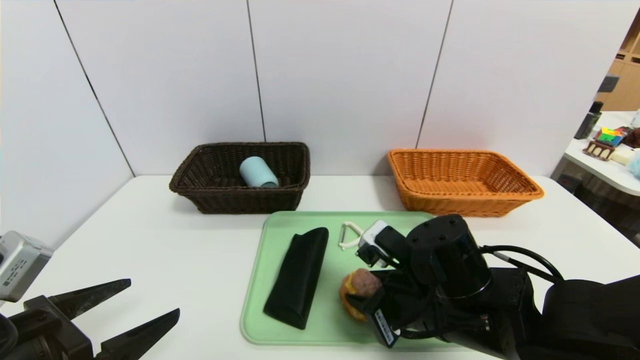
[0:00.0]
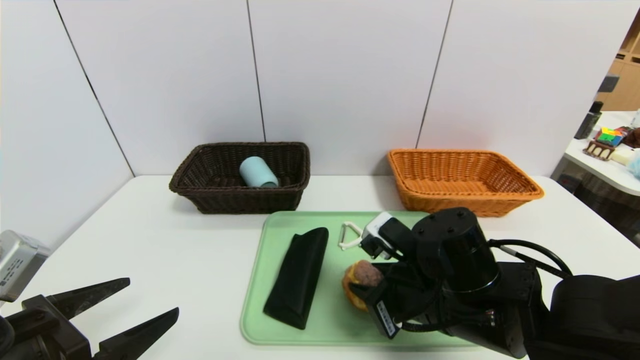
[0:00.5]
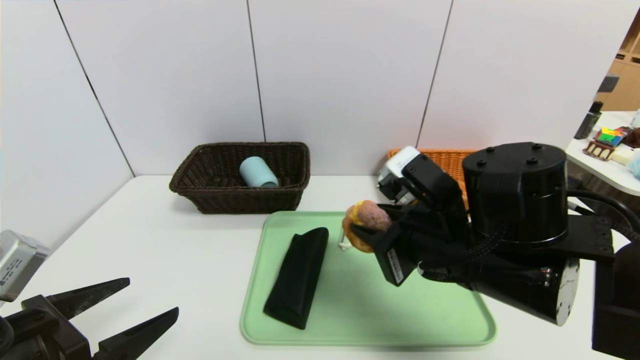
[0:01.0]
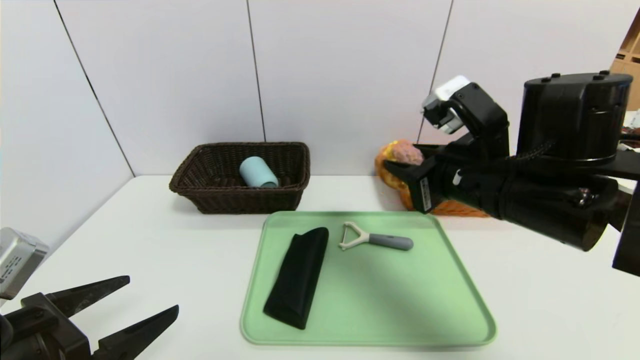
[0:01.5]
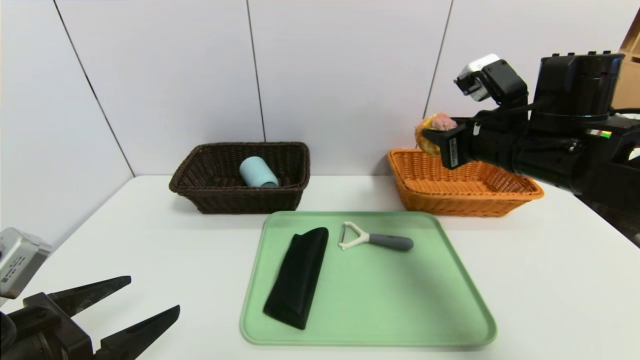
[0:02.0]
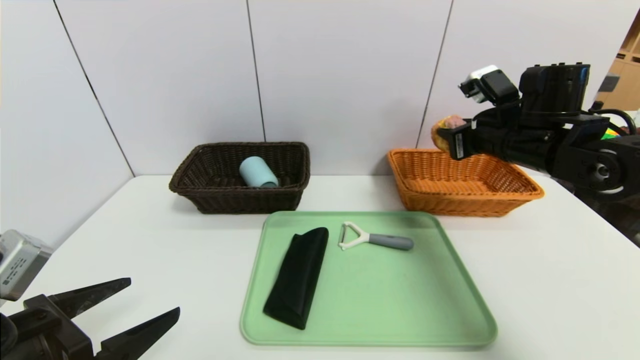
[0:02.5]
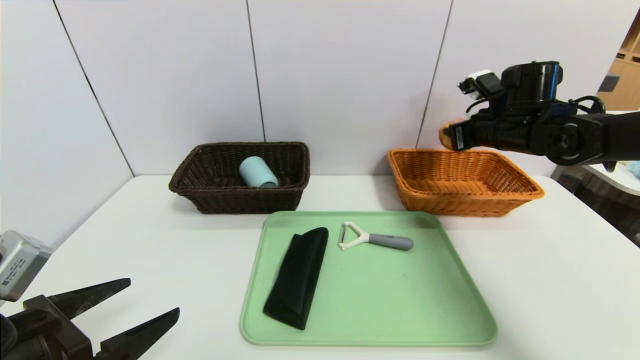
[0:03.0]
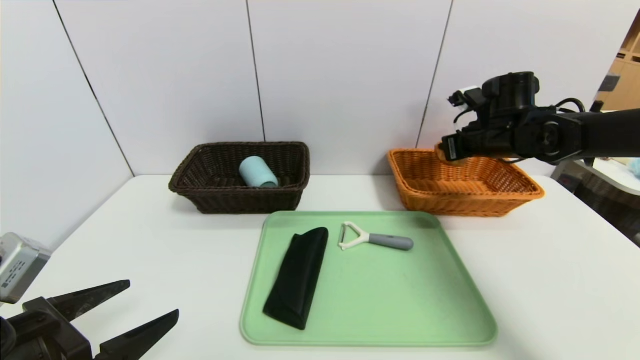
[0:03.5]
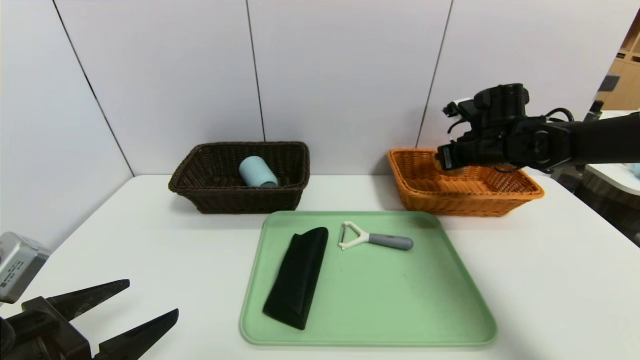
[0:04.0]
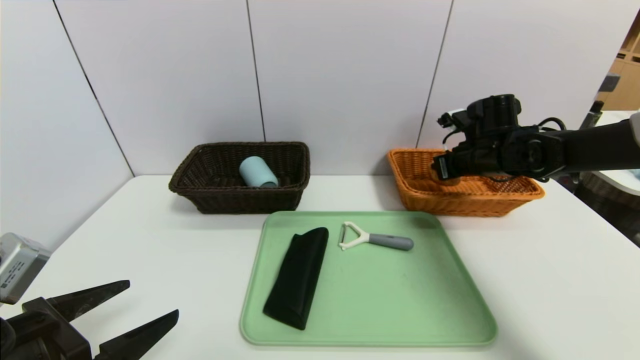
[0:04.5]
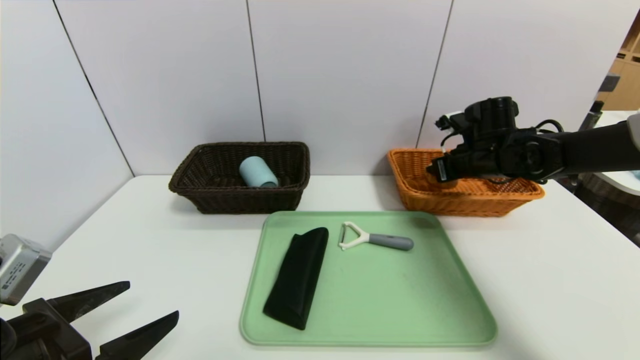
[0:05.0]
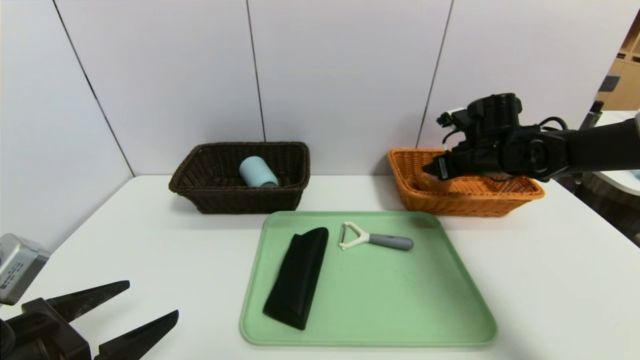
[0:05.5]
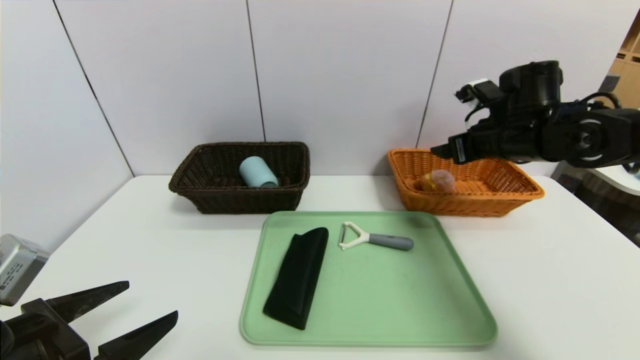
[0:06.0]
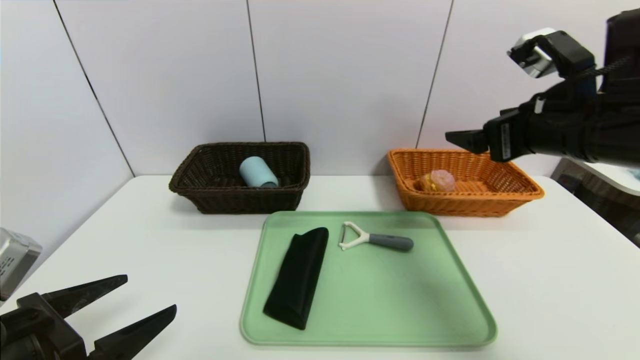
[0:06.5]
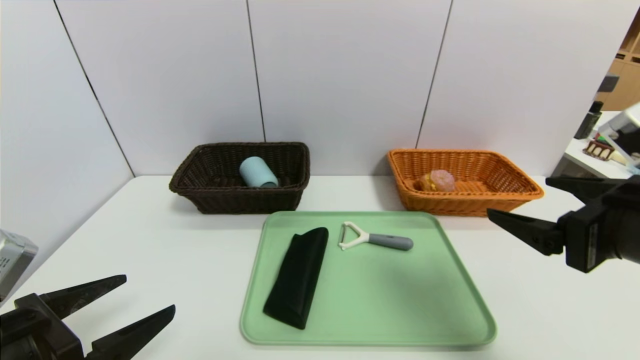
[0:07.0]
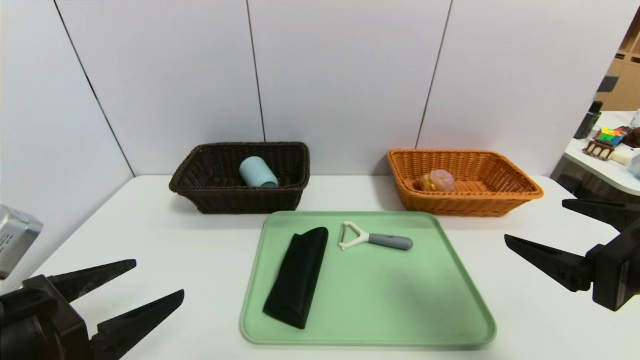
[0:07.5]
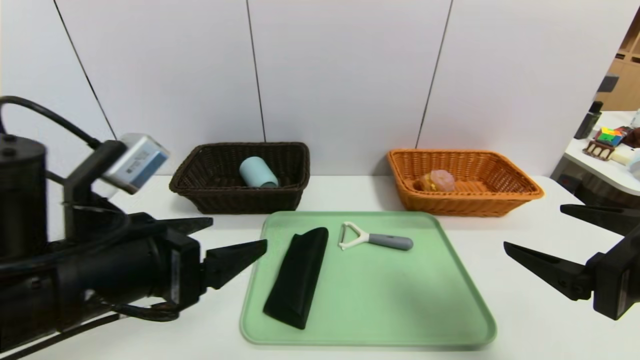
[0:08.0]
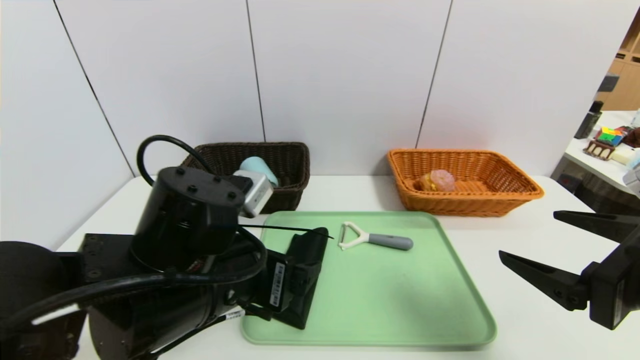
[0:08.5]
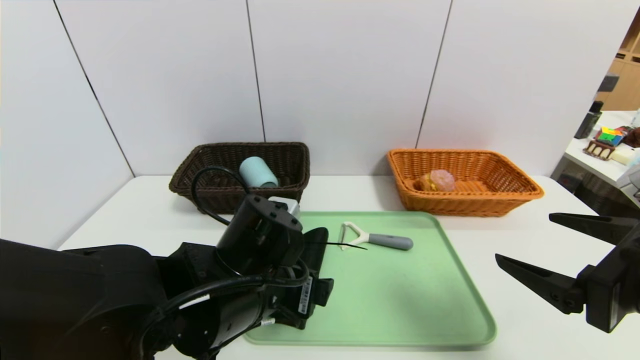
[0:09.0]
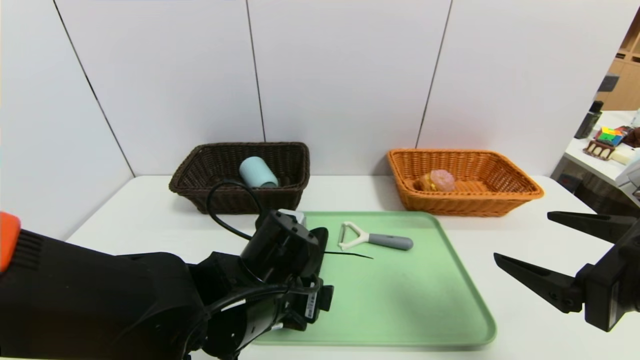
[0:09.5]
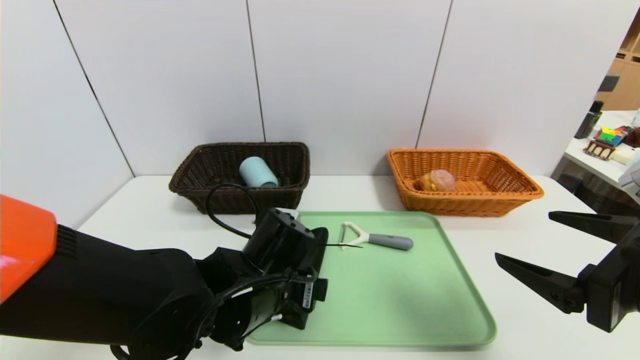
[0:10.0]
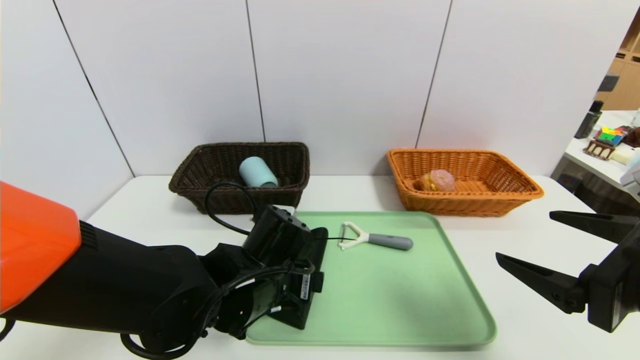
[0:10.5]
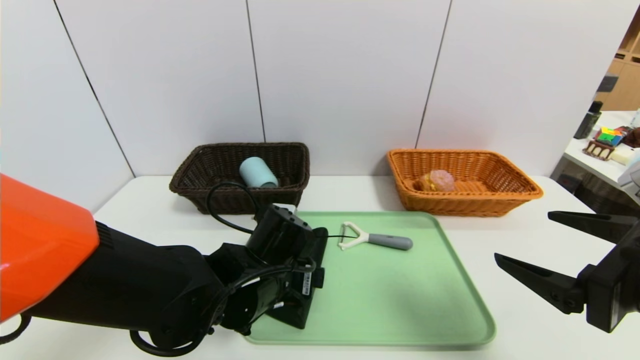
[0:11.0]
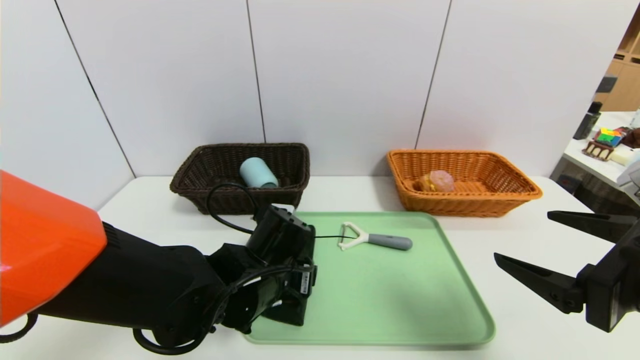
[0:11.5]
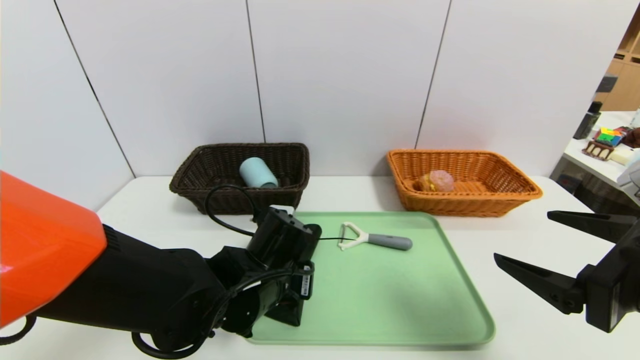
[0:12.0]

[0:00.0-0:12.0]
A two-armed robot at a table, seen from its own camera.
Task of the whole recording: place the food in the right basket with the right gripper, and place the non food items in the left basket with the left gripper.
Step, 0:00.0 to 0:06.5: Grasp the round bread and put it in the right basket.
0:00.0 to 0:02.0: The right gripper travels upward, to the right and forward by about 20 cm.
0:02.0 to 0:04.0: The right gripper goes approximately 15 cm forward, to the right and downward.
0:04.0 to 0:06.0: The right gripper changes place by about 5 cm, and opens its fingers.
0:06.0 to 0:08.0: The right gripper is displaced backward by some 25 cm. Meanwhile the left gripper is displaced to the right, upward and forward by approximately 10 cm.
0:08.0 to 0:10.0: The left gripper goes about 20 cm downward, to the right and forward.
0:10.0 to 0:12.0: The left gripper closes up.

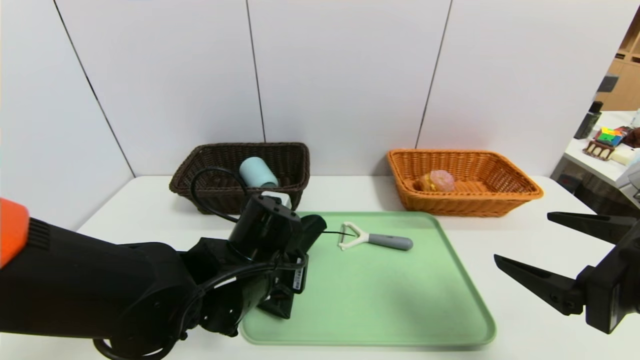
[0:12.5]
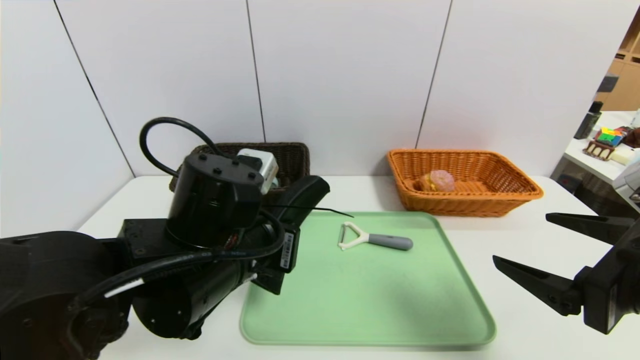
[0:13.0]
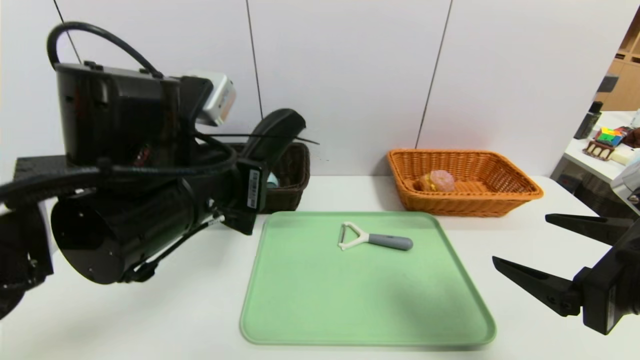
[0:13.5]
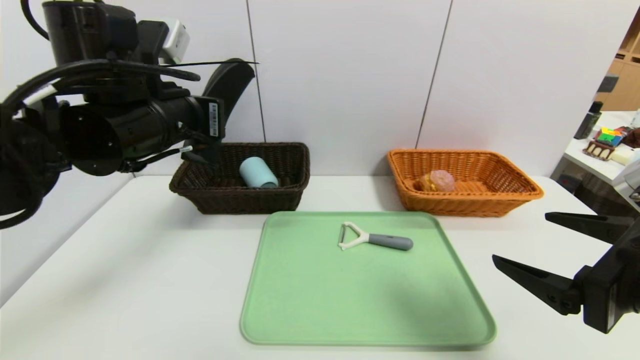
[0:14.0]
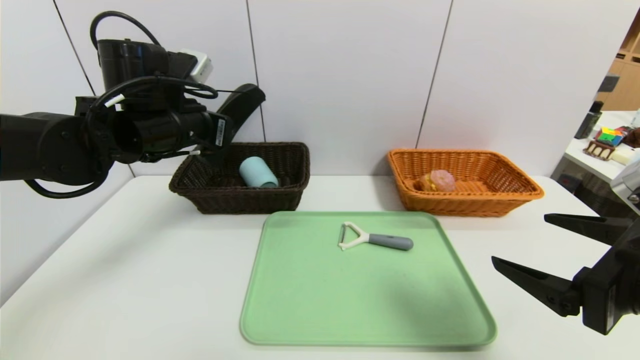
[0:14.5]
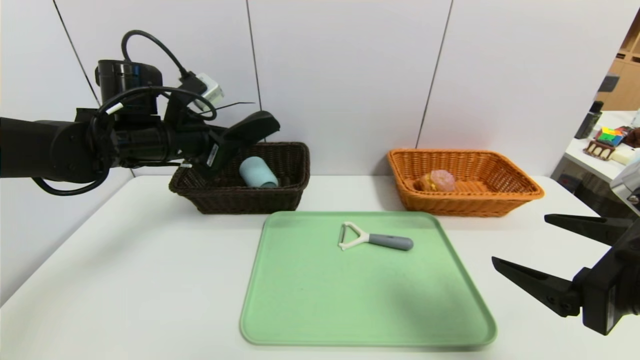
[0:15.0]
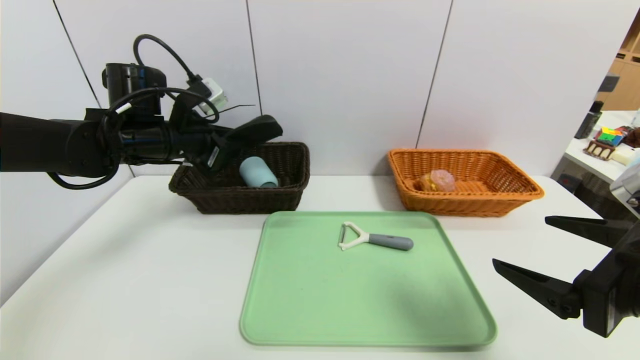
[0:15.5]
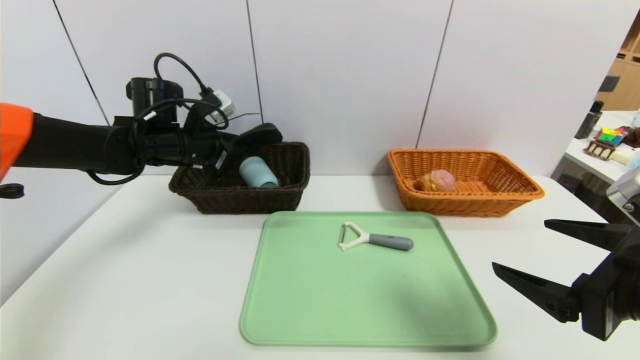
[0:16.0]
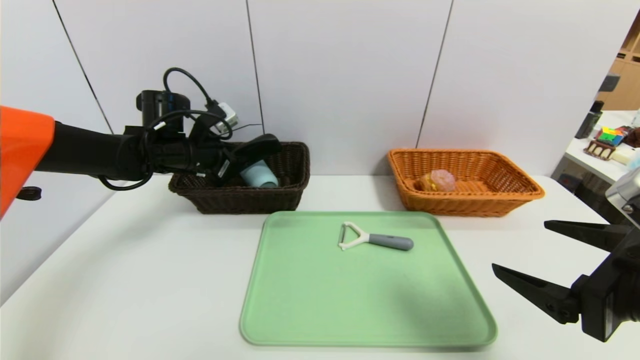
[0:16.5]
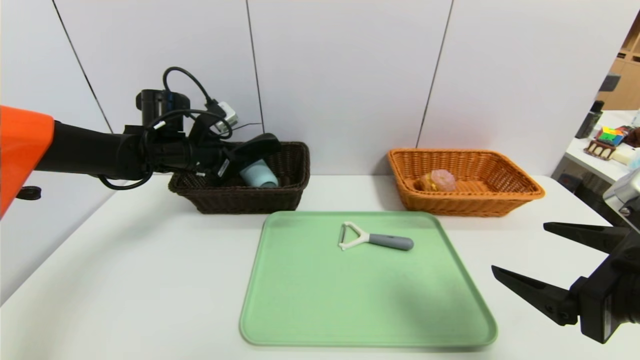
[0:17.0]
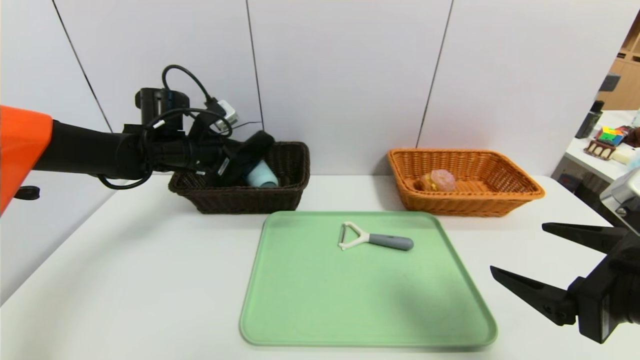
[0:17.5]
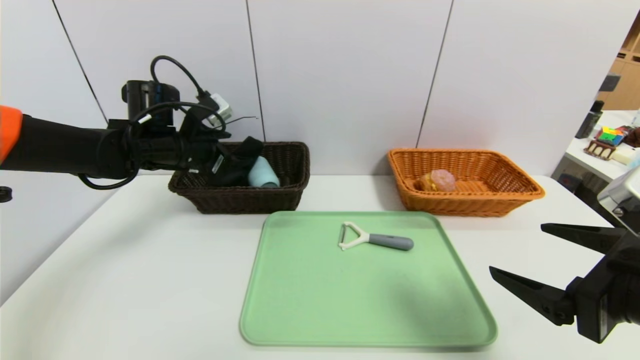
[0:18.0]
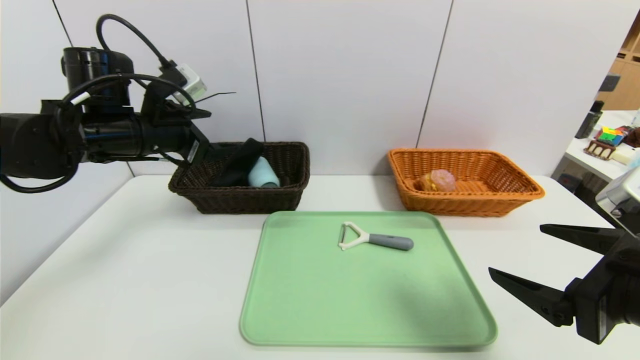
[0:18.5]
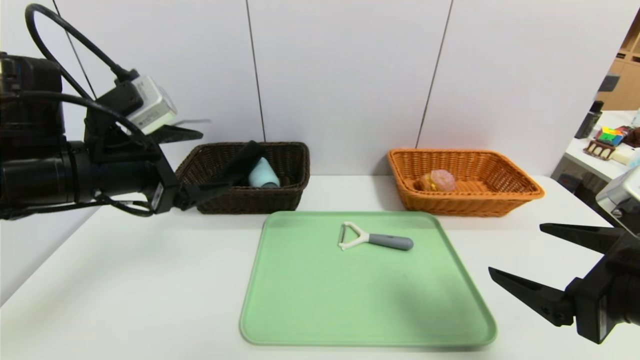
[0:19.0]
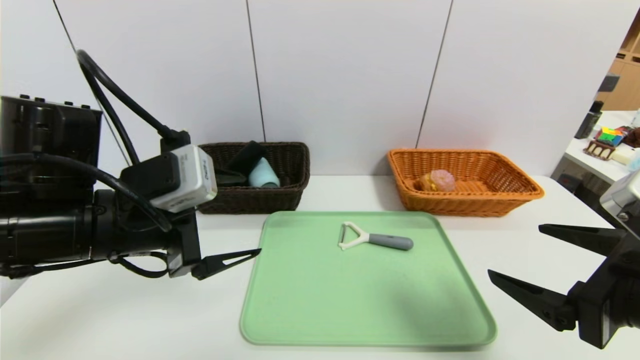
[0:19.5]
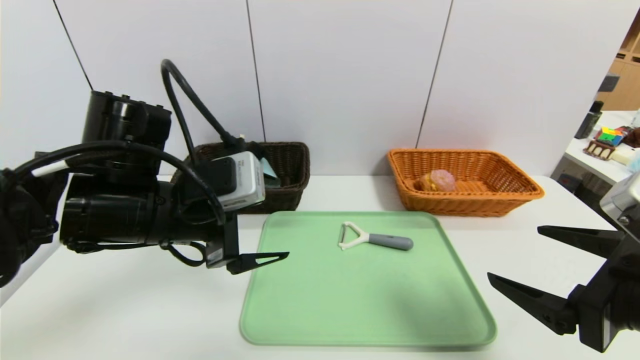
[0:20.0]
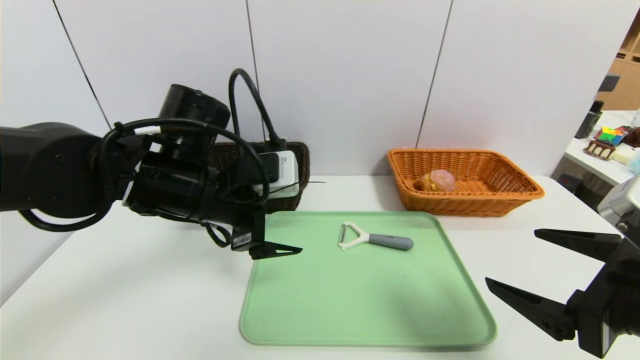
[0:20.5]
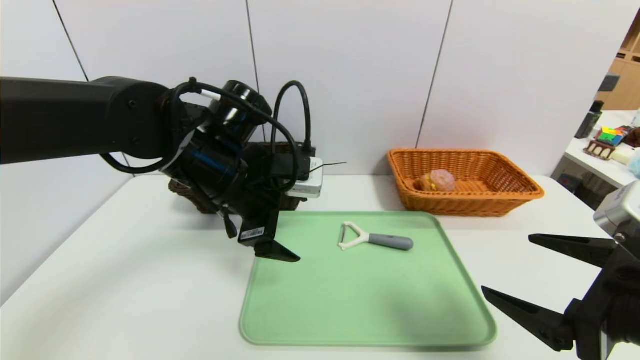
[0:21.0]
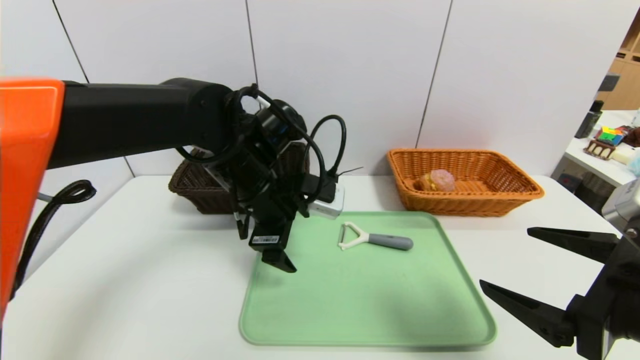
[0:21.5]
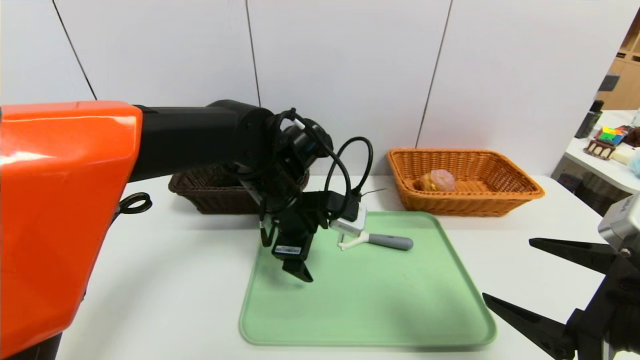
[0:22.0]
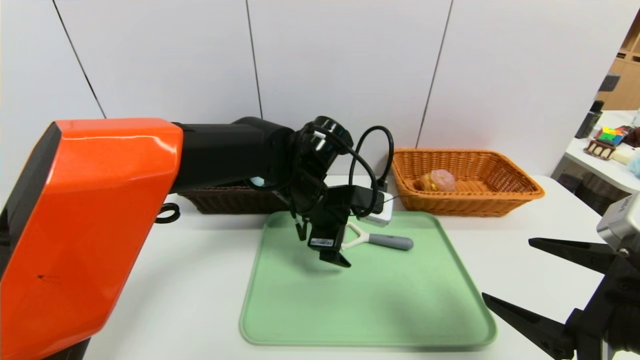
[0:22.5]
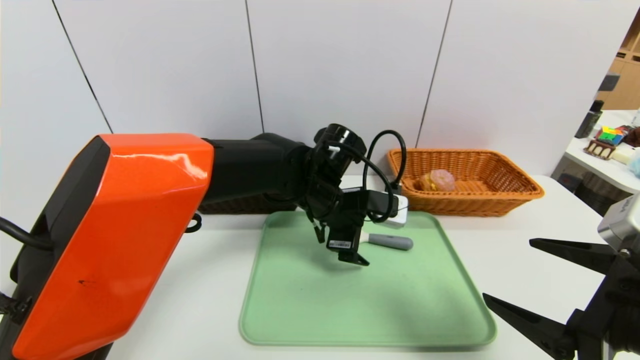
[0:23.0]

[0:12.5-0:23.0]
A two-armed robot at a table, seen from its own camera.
Task of the whole recording: place the food in the right basket with the right gripper, and place the non food items in the left basket with the left gripper.
Step, 0:12.5 to 0:18.5: Grasp the glasses case and put it in the left basket.
0:12.5 to 0:14.5: The left gripper is displaced upward, to the left and forward by roughly 20 cm.
0:14.5 to 0:16.5: The left gripper is displaced forward and downward by some 10 cm.
0:16.5 to 0:19.0: The left gripper heads backward, covering some 20 cm, and opens up.
0:19.0 to 0:21.0: The left gripper moves to the right and forward, about 15 cm.
0:21.0 to 0:23.0: The left gripper shifts some 15 cm to the right and downward.
